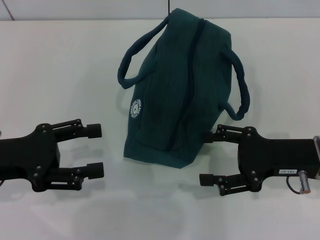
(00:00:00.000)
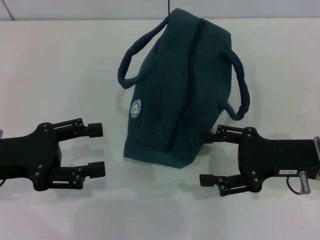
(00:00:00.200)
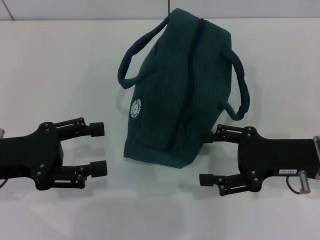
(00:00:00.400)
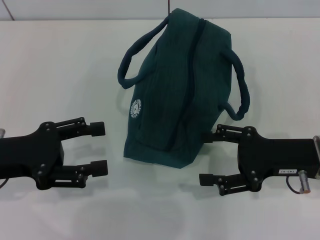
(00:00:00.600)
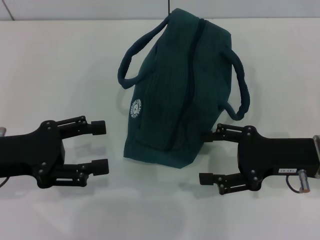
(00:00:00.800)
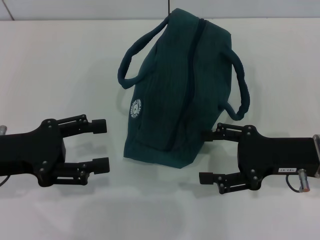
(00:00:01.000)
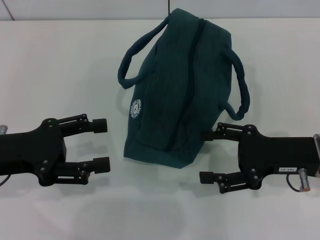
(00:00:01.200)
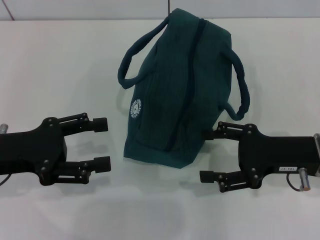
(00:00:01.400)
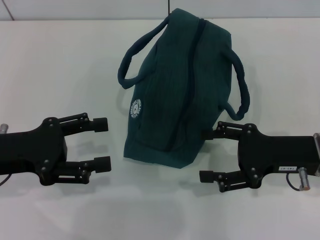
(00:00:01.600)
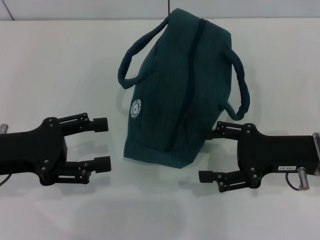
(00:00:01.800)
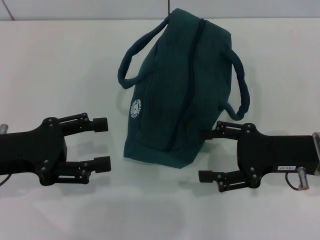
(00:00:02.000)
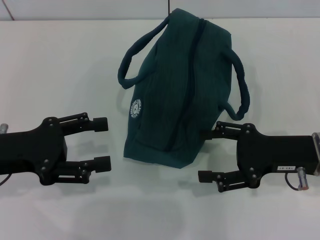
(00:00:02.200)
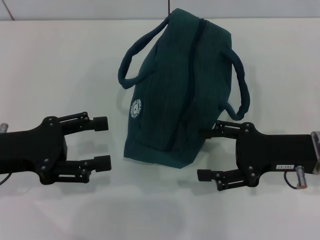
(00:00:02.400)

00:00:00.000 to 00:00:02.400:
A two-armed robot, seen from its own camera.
00:00:00.000 to 00:00:02.400: The two grippers keep their place.
